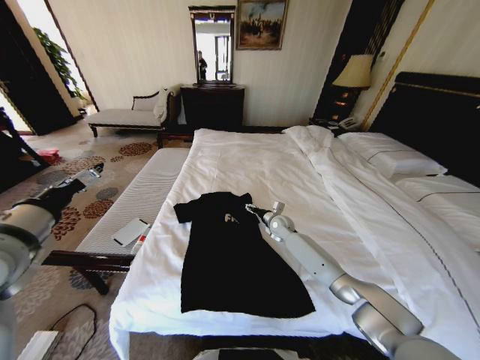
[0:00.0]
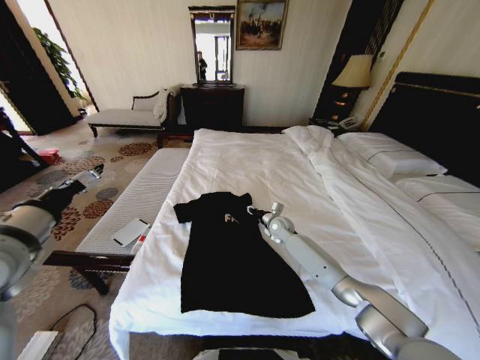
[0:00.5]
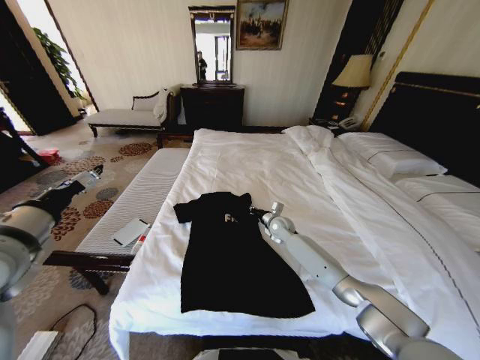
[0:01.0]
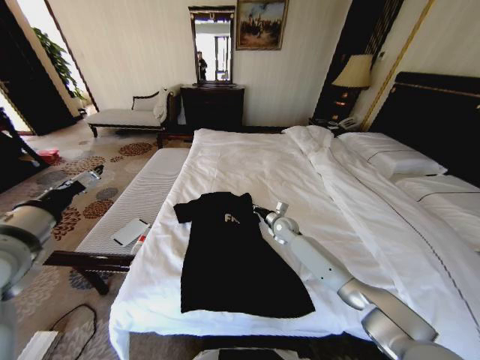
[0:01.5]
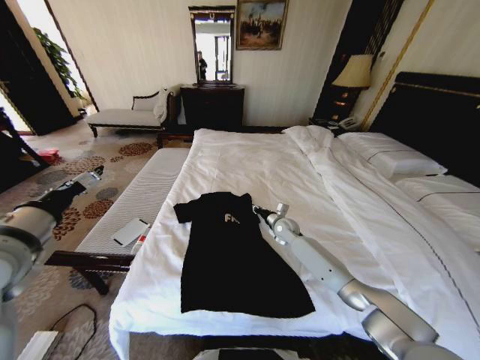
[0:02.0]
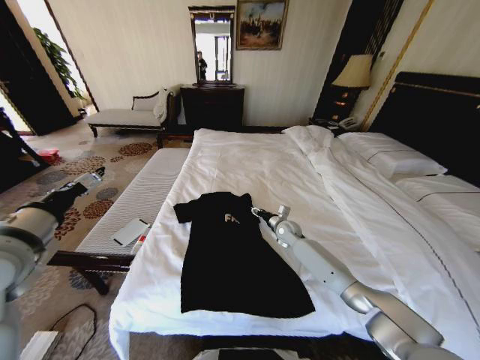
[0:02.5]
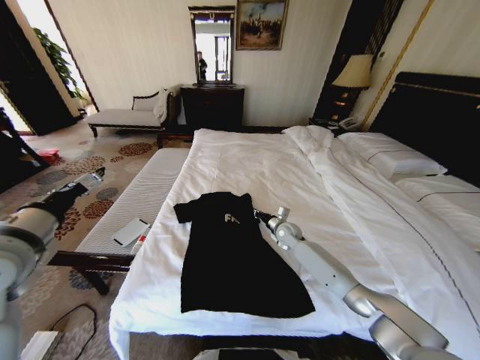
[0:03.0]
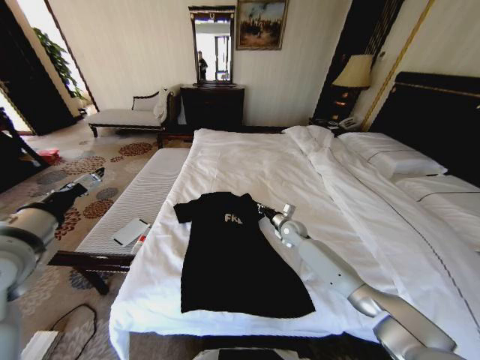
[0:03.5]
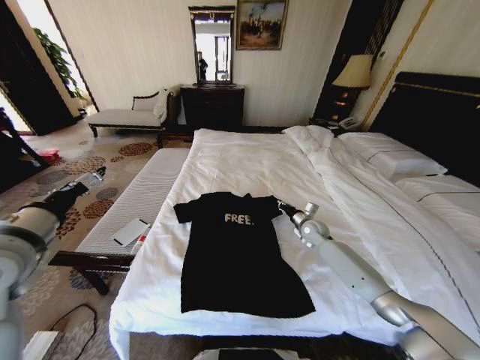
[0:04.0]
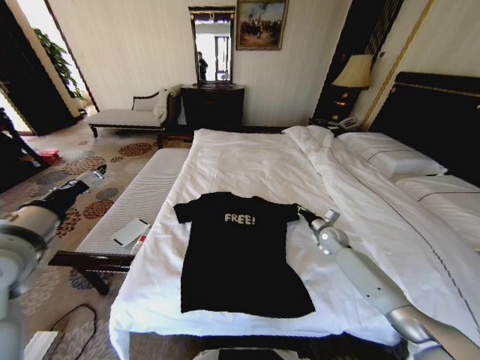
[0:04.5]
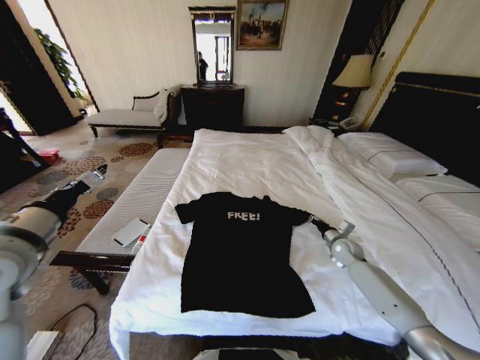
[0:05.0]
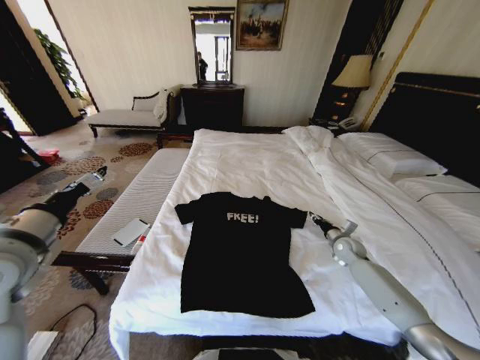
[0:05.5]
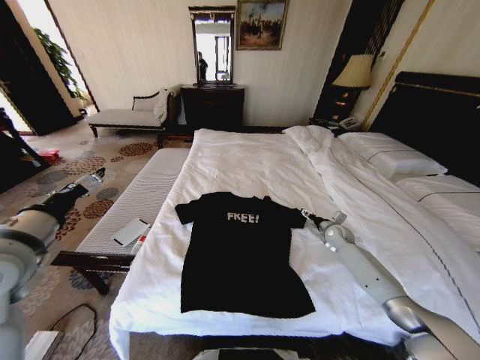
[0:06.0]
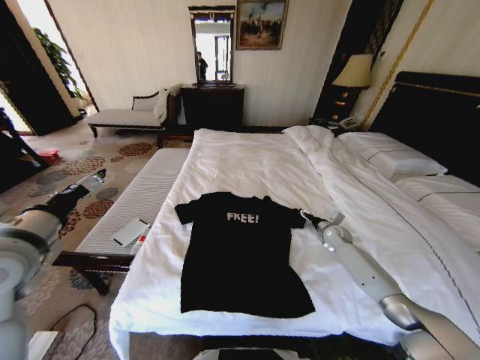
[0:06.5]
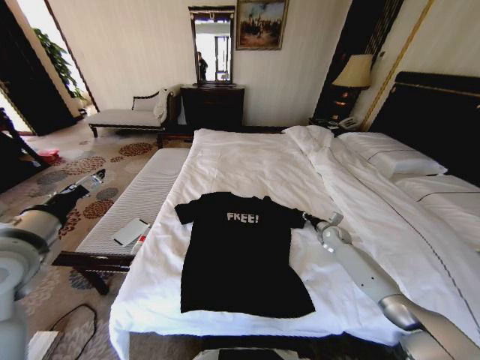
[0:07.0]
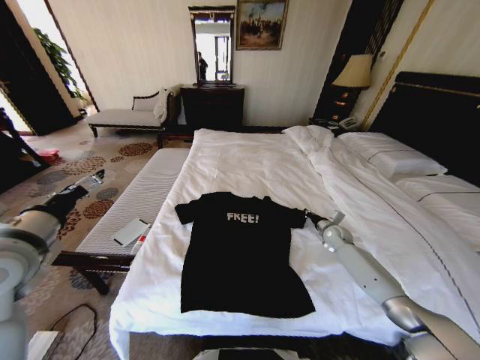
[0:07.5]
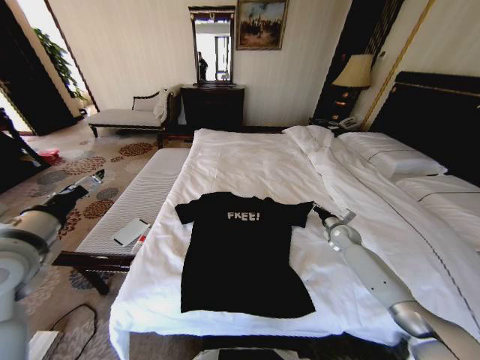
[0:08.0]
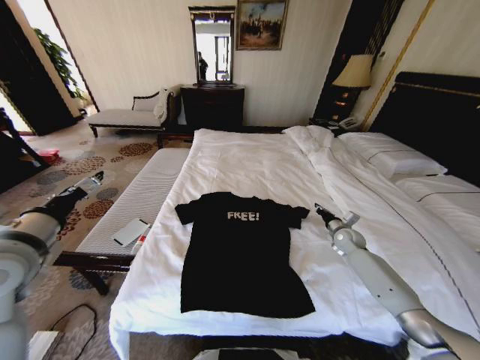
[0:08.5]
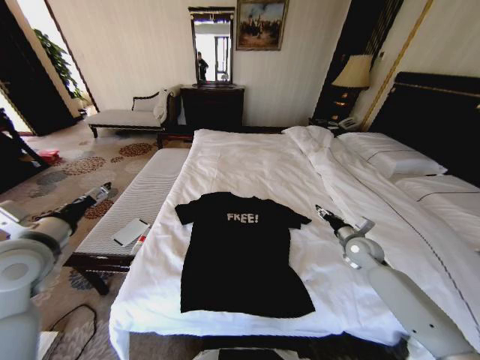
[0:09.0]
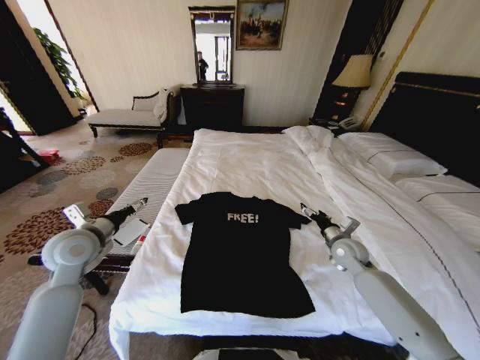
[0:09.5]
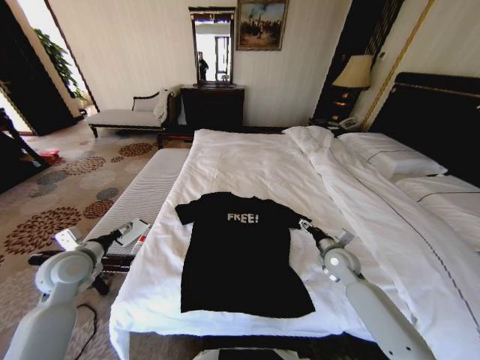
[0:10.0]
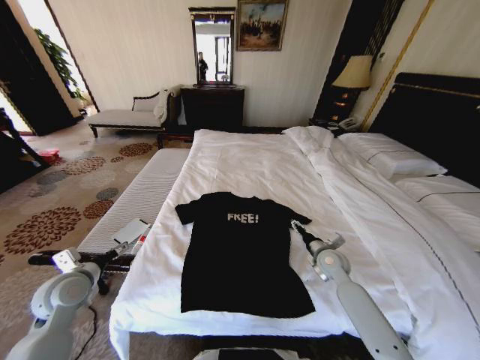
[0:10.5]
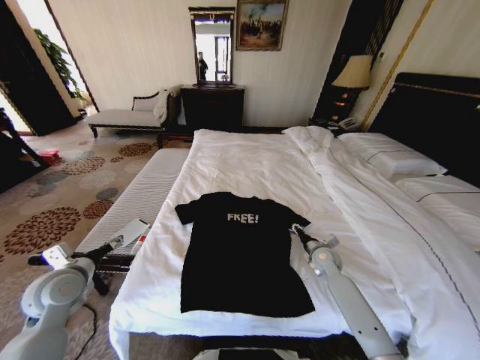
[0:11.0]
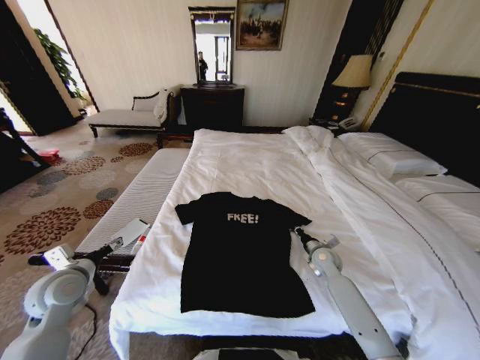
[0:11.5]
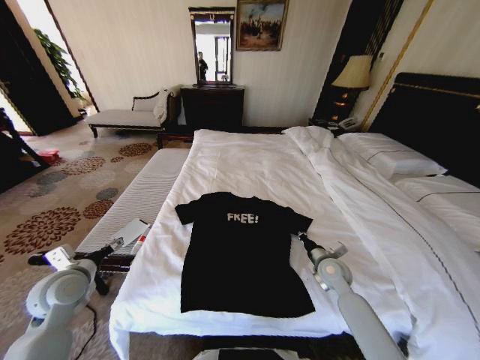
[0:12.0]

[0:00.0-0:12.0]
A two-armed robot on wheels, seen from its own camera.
Task of the whole recording: Fold the clothes on the bed.
0:00.0 to 0:02.0: The right gripper closes up.
0:02.0 to 0:04.0: The right gripper shifts about 10 cm to the right, and opens and closes again.
0:04.0 to 0:06.0: The right gripper goes roughly 10 cm to the right, and opens.
0:06.0 to 0:08.0: The right gripper closes.
0:08.0 to 0:10.0: The right gripper goes about 15 cm backward and to the left, and opens its fingers, while the left gripper is displaced downward and forward by roughly 15 cm.
0:10.0 to 0:12.0: The right gripper closes its fingers.

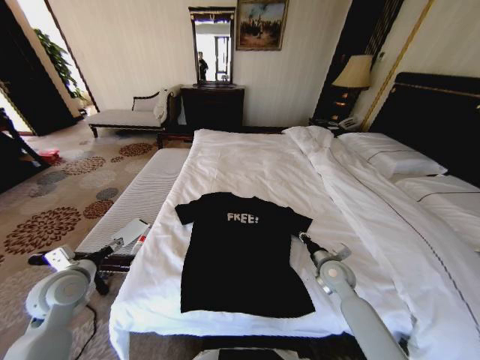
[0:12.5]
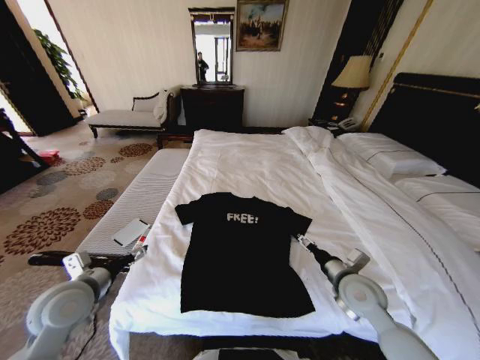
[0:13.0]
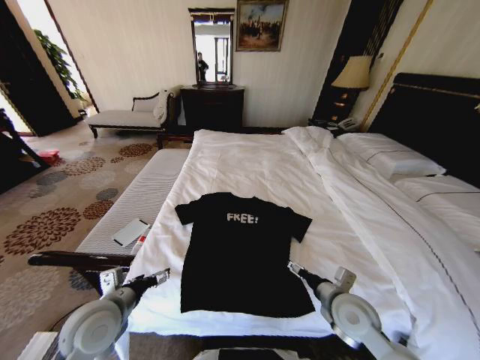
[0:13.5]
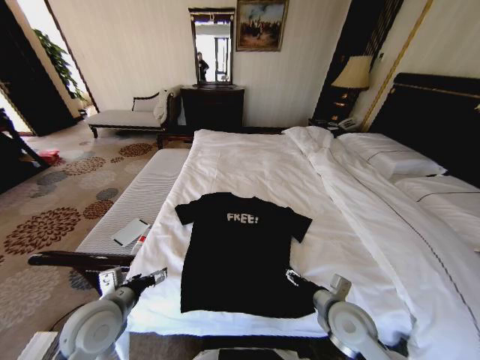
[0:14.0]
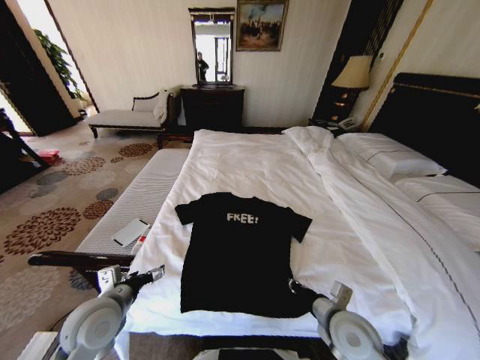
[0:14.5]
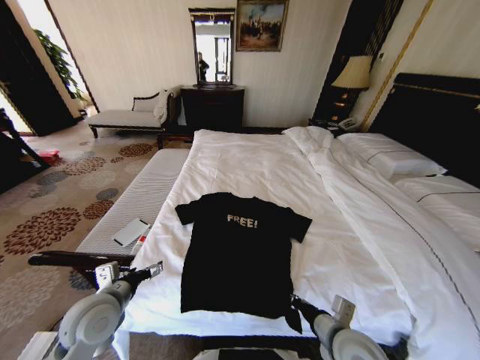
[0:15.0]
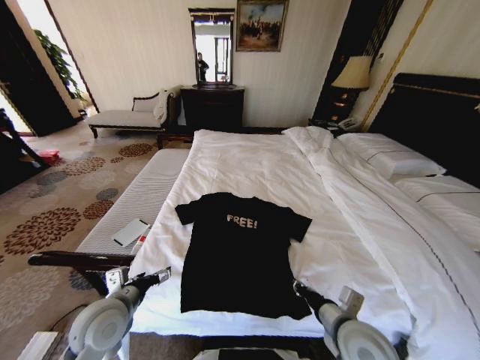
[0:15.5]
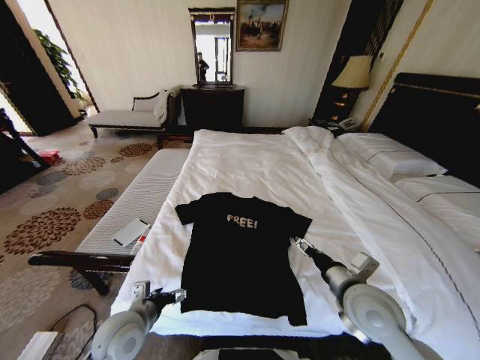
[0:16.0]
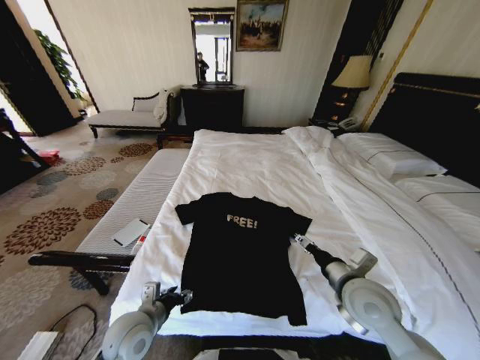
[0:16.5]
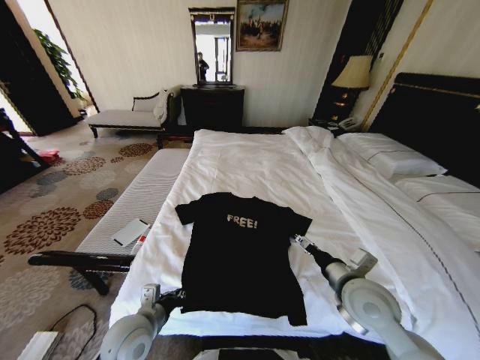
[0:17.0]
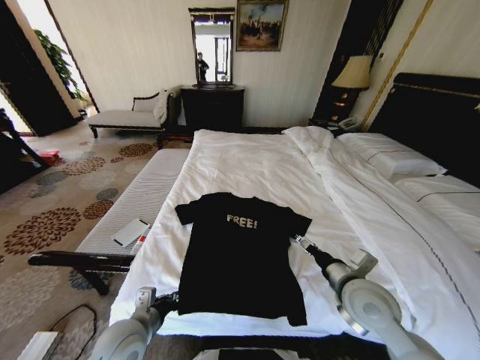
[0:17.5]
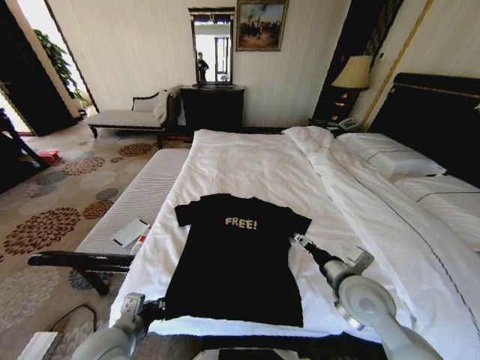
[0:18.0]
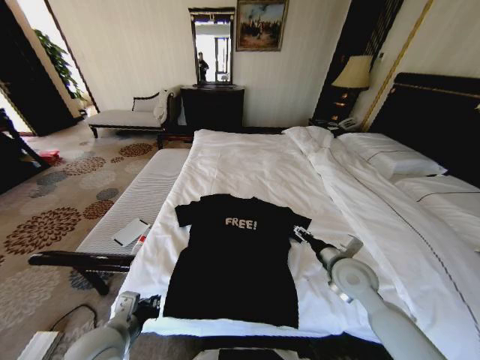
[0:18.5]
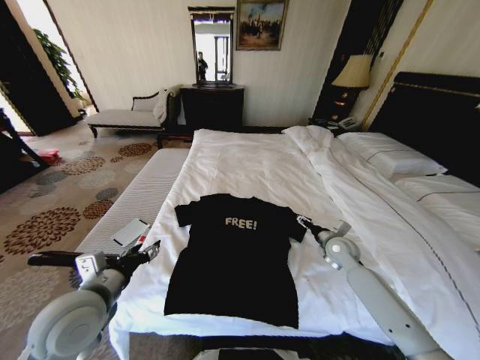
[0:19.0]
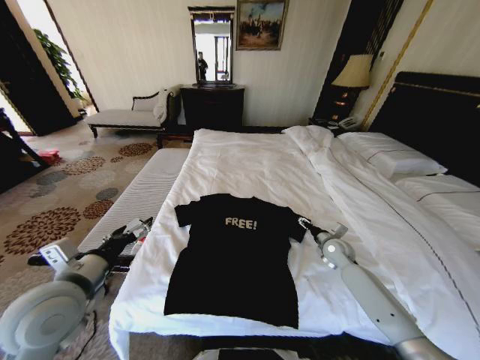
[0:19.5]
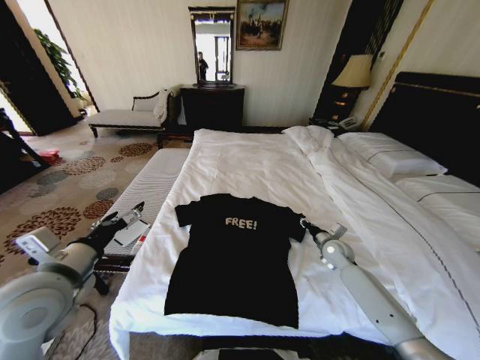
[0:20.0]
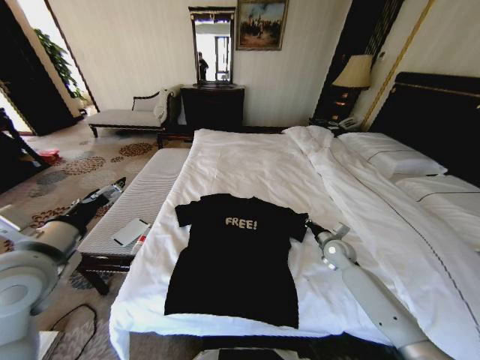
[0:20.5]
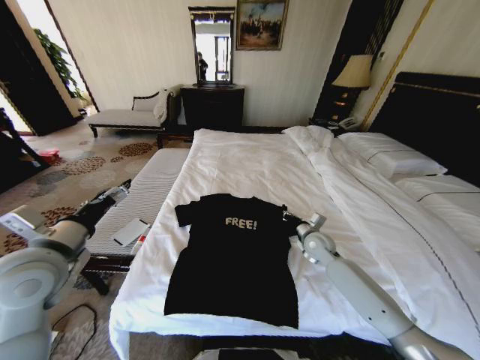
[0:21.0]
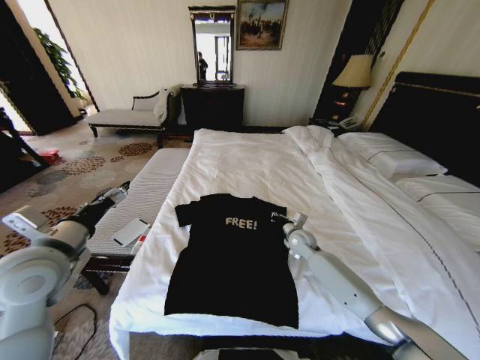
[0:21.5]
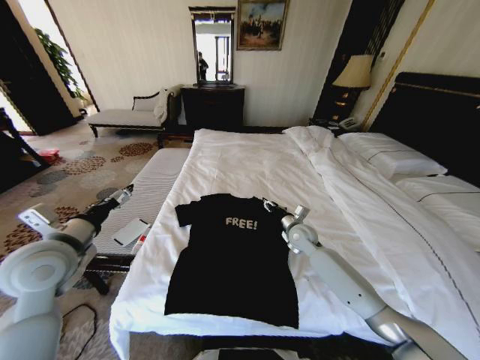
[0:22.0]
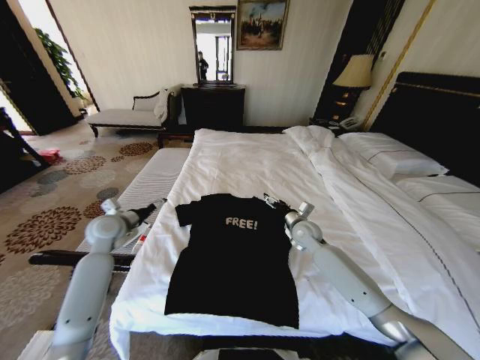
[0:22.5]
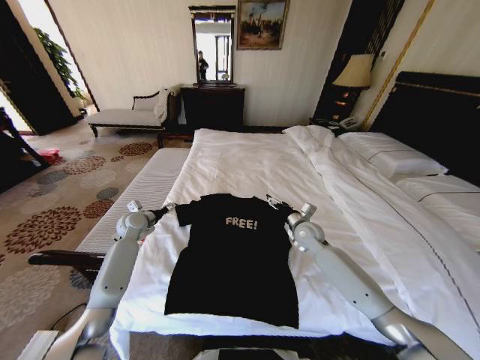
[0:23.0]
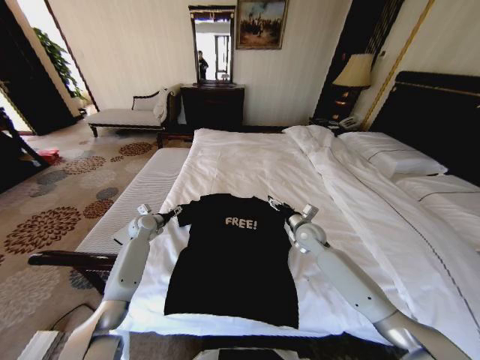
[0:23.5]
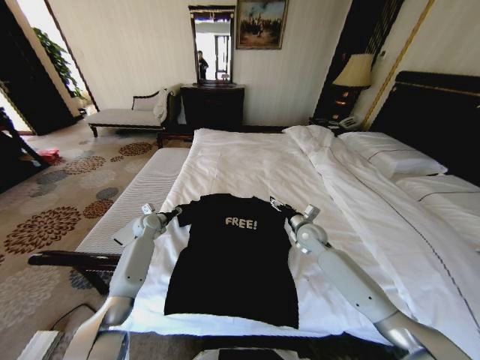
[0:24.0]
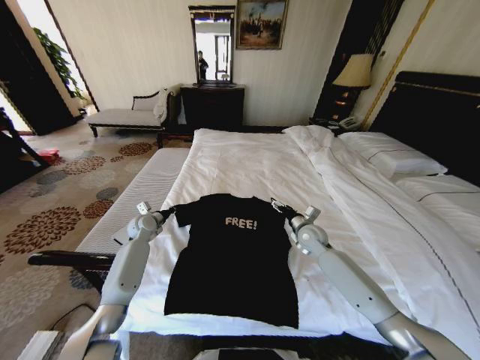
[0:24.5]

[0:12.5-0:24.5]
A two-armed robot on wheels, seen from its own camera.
Task of the whole recording: Fold the clothes on the bed.
0:12.5 to 0:14.5: The left gripper shifts some 10 cm to the right and backward. Meanwhile the right gripper moves backward and to the left, approximately 15 cm, and opens, then closes once more.
0:14.5 to 0:16.5: The left gripper is displaced to the right and downward by some 10 cm. Meanwhile the right gripper heads upward, covering about 10 cm, and opens up.
0:16.5 to 0:18.5: The right gripper is displaced forward by roughly 5 cm. The left gripper ends up some 5 cm from where it was, and closes up.
0:18.5 to 0:20.5: The left gripper is displaced upward, to the left and forward by approximately 20 cm, and opens up. Meanwhile the right gripper goes some 20 cm forward, downward and to the right, and closes up.
0:20.5 to 0:22.5: The right gripper travels to the left and upward by about 15 cm, and opens its fingers. The left gripper travels forward and downward by approximately 20 cm.
0:22.5 to 0:24.5: The left gripper travels downward and forward by roughly 15 cm, and closes.

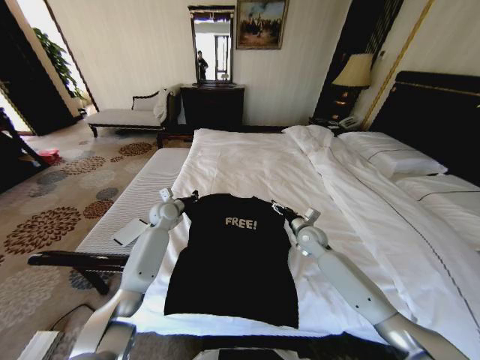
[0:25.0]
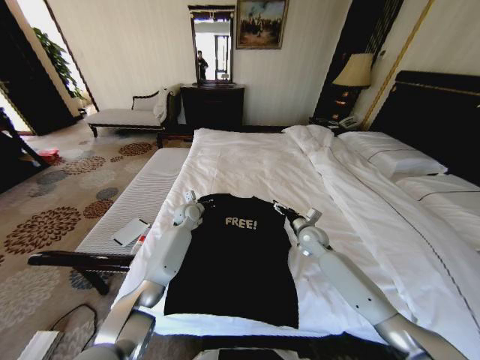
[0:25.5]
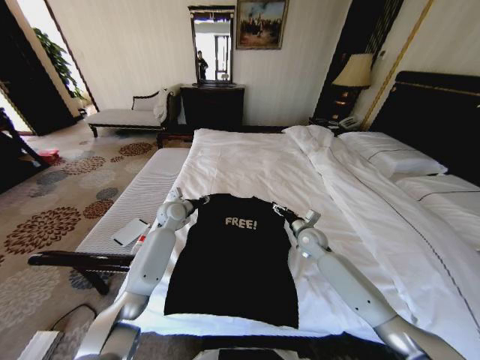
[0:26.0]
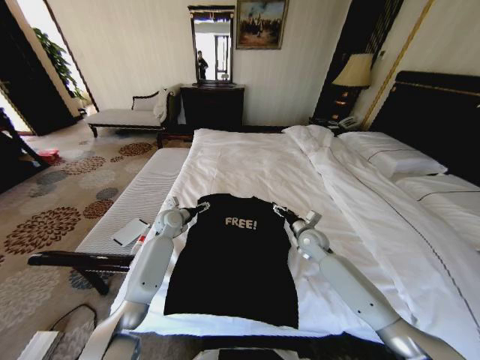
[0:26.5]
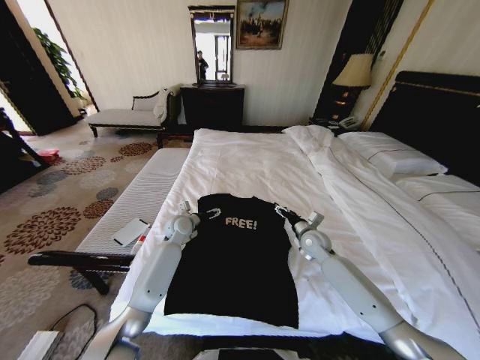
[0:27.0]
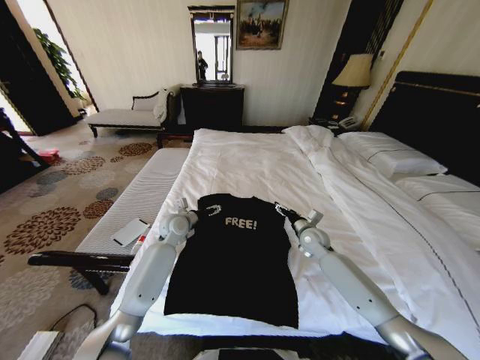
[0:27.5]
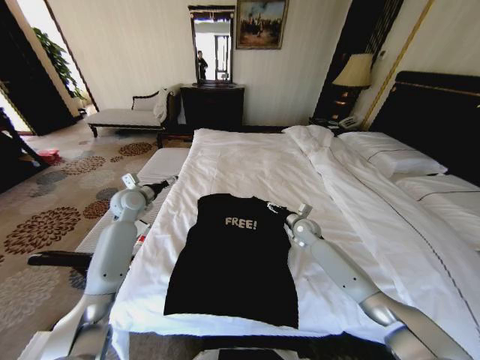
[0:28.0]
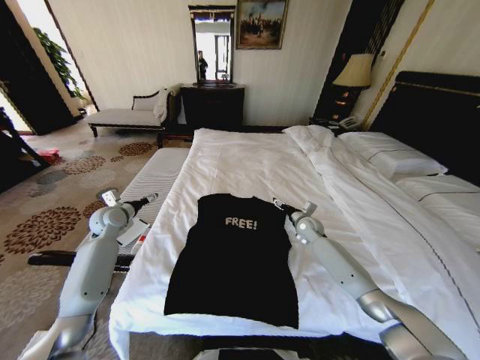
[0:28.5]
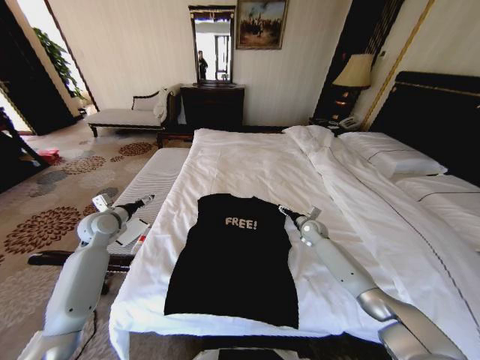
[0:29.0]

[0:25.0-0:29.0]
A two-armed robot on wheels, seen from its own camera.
Task of the whole recording: Fold the clothes on the bed.
0:25.0 to 0:27.0: The left gripper goes about 5 cm to the right, and opens up.
0:27.0 to 0:29.0: The left gripper goes approximately 20 cm to the left, while the right gripper shifts some 10 cm forward.
